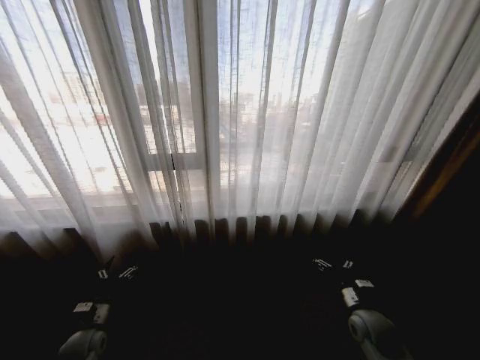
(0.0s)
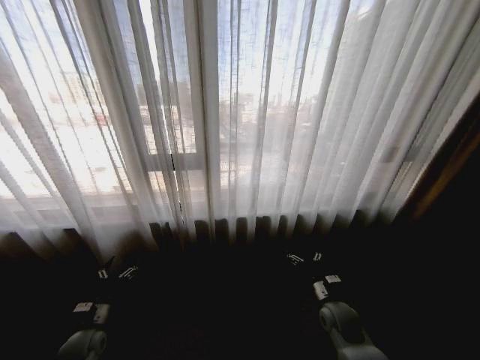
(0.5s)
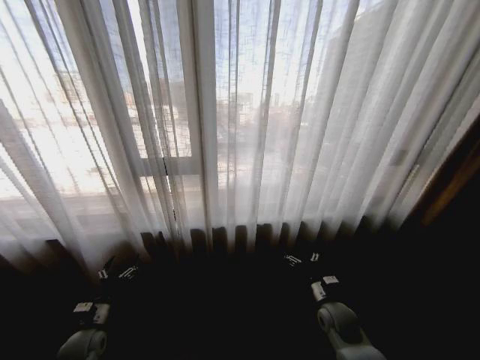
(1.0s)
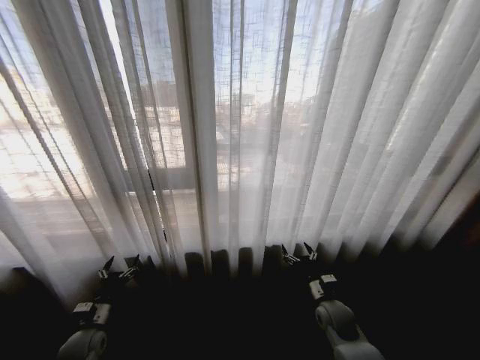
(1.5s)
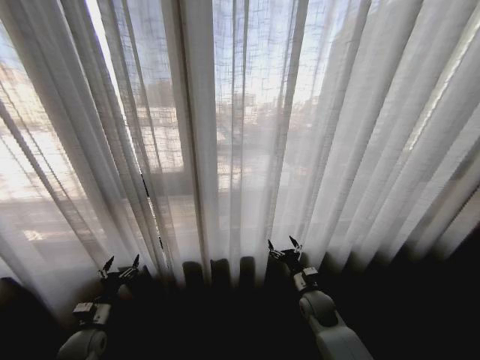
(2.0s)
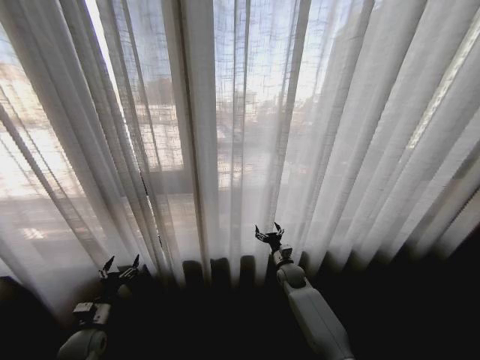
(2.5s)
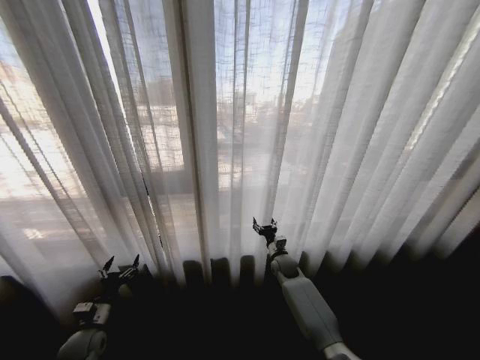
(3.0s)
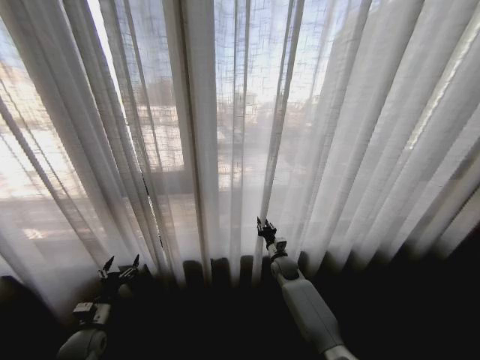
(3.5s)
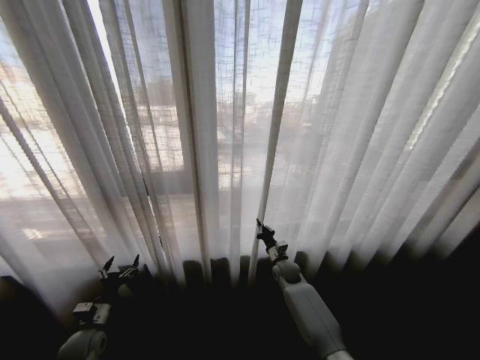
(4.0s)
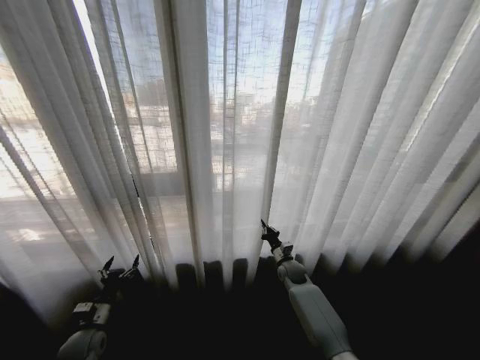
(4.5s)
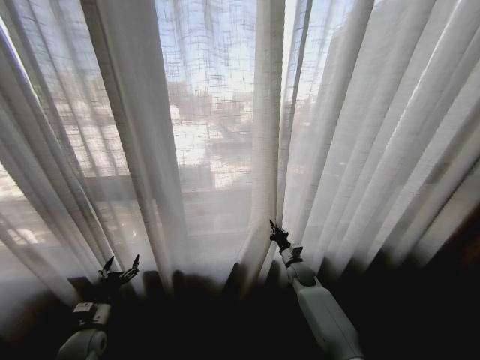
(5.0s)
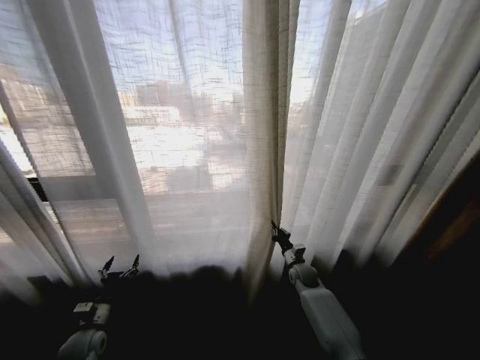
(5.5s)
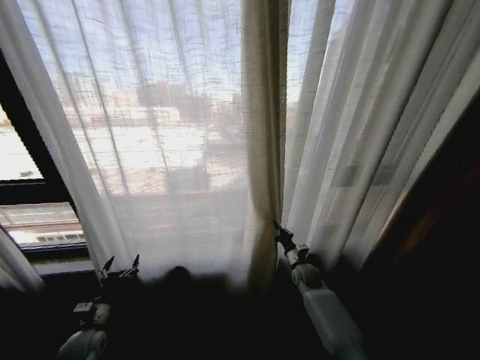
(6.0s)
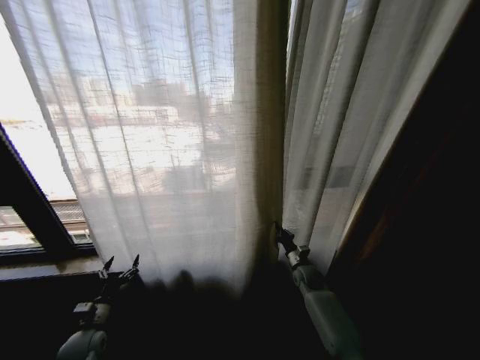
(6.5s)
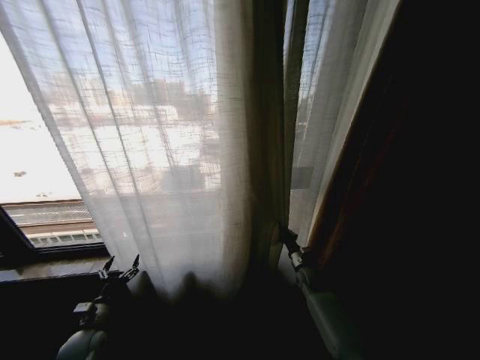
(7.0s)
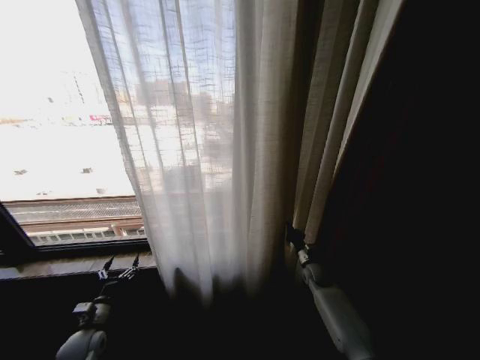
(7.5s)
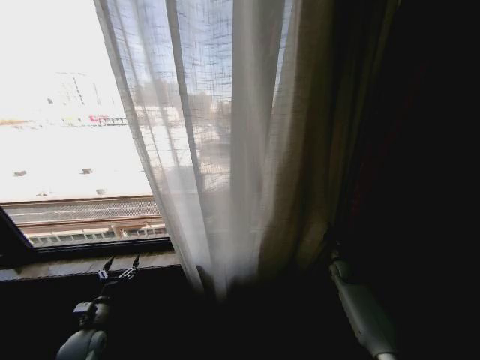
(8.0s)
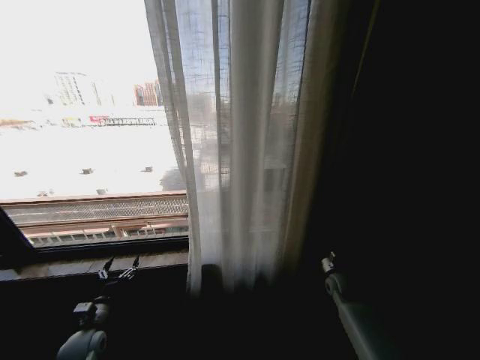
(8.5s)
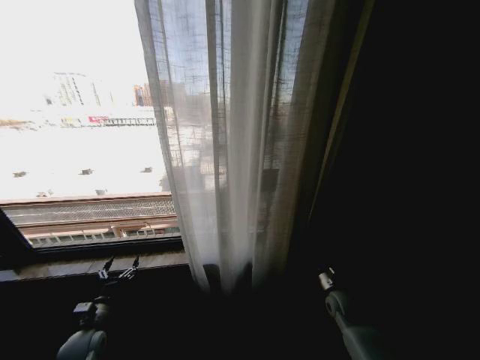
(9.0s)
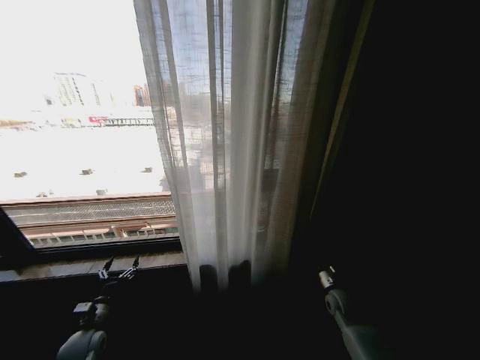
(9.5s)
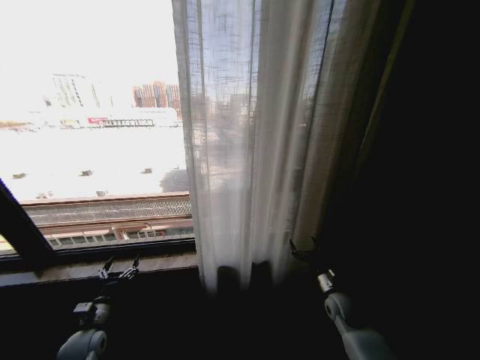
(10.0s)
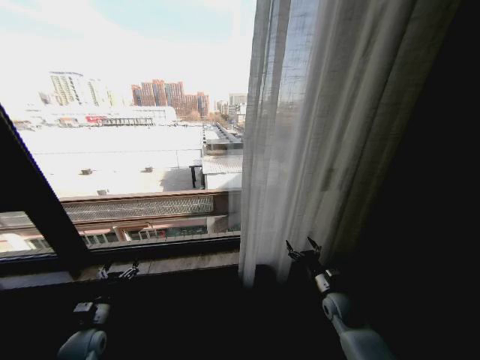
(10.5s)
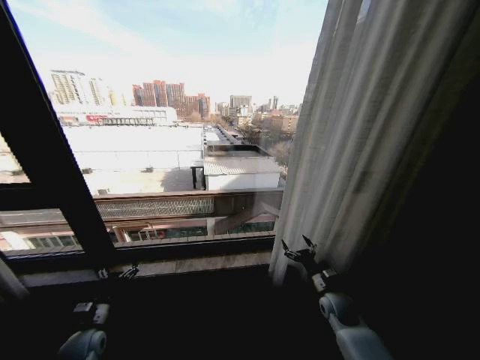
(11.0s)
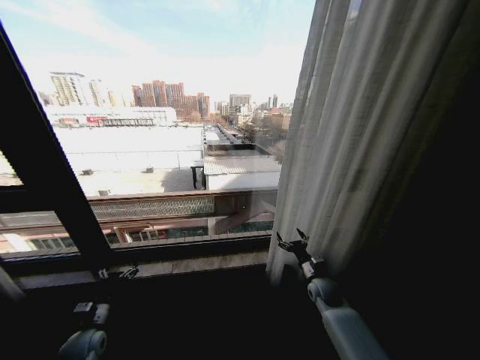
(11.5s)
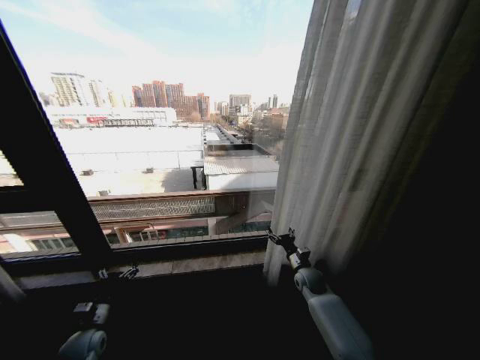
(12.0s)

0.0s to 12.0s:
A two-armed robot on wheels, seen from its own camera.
Task of the whole recording: Open the curtains by pulling them apart, changing their state from closed to fully open.
2.0s to 4.0s: The right gripper heads forward and to the left, covering approximately 15 cm, and closes its fingers.
4.0s to 6.0s: The right gripper heads to the right, covering roughly 5 cm.
6.0s to 8.0s: The right gripper heads to the right, covering roughly 15 cm.
8.0s to 10.0s: The right gripper is displaced backward and to the left by some 15 cm, and opens.
10.0s to 12.0s: The right gripper goes approximately 10 cm forward and to the left.

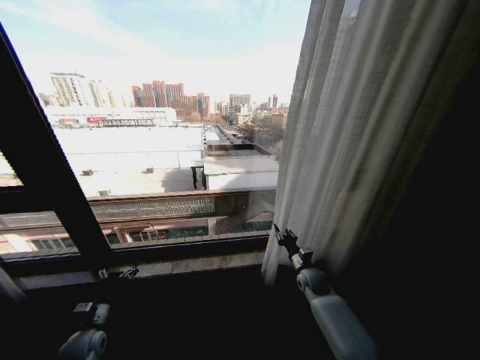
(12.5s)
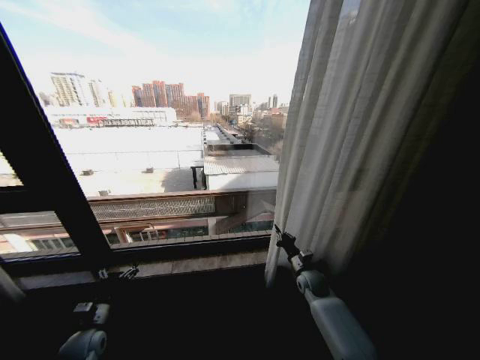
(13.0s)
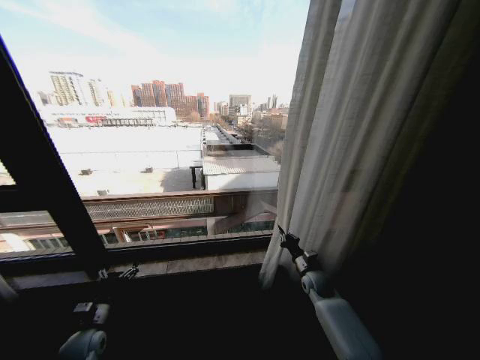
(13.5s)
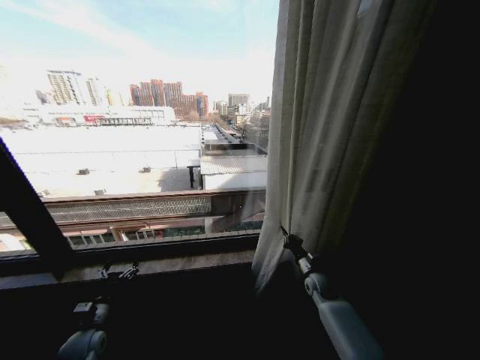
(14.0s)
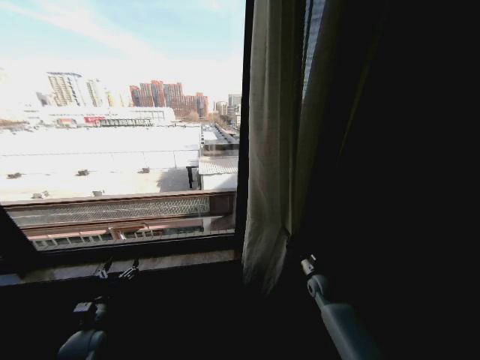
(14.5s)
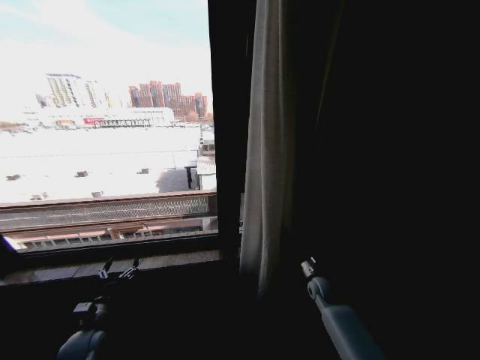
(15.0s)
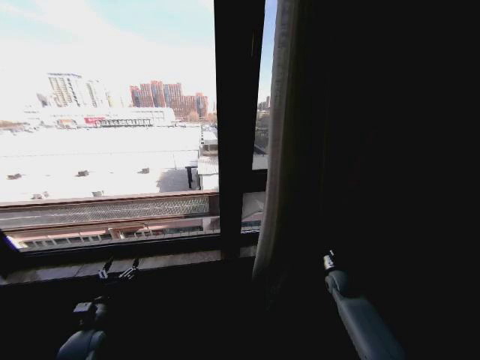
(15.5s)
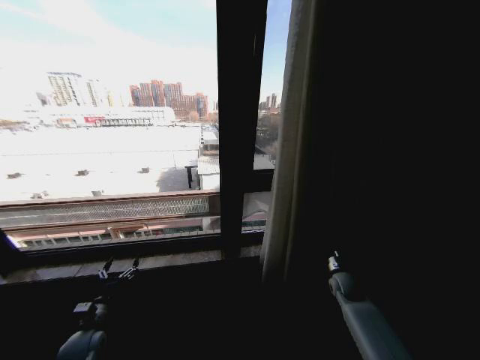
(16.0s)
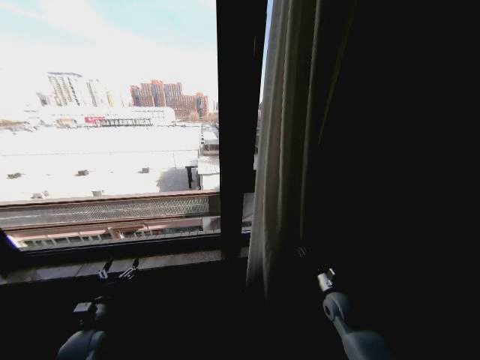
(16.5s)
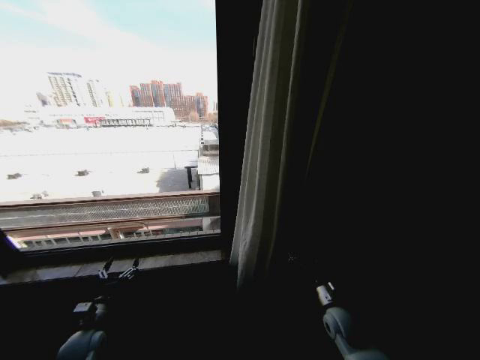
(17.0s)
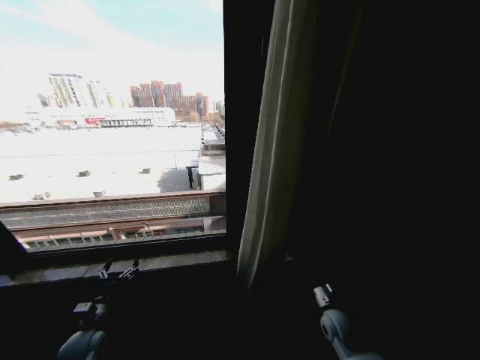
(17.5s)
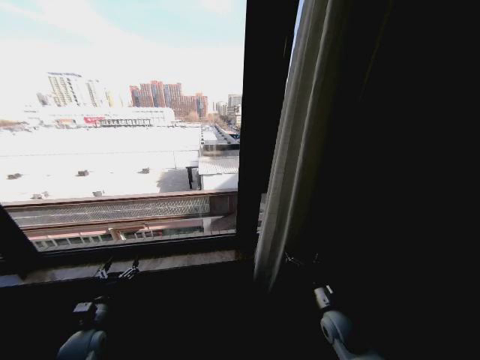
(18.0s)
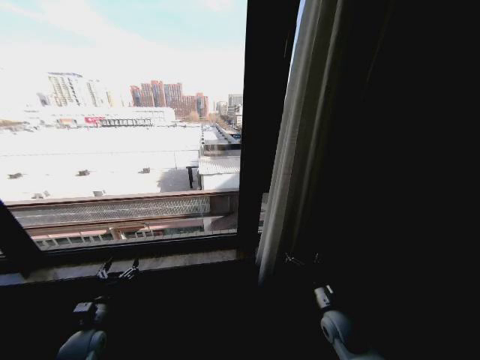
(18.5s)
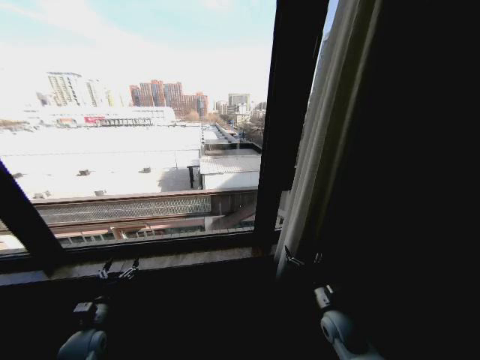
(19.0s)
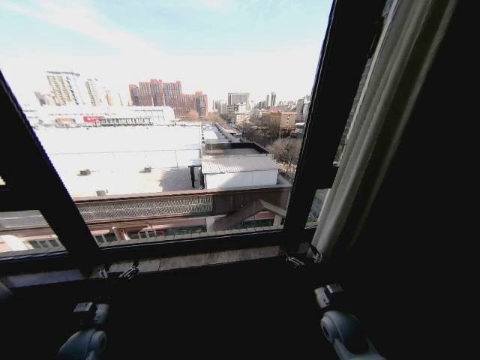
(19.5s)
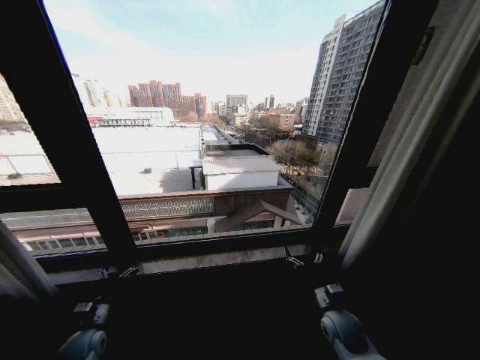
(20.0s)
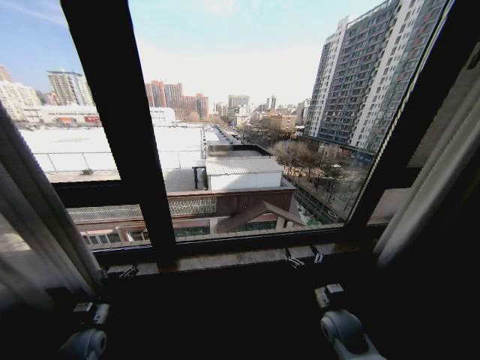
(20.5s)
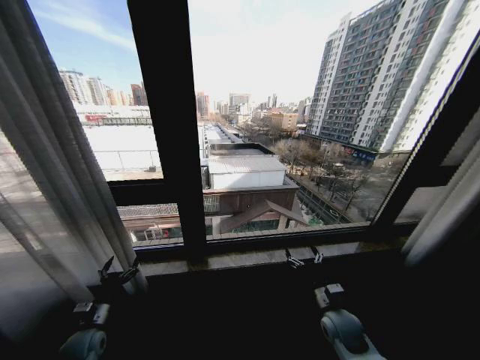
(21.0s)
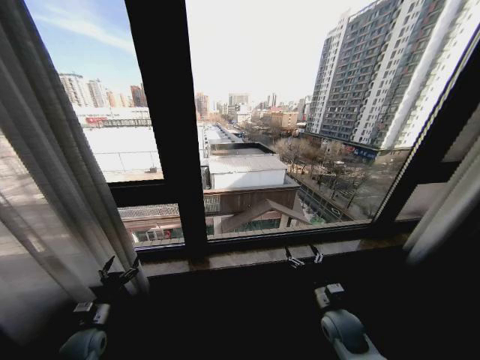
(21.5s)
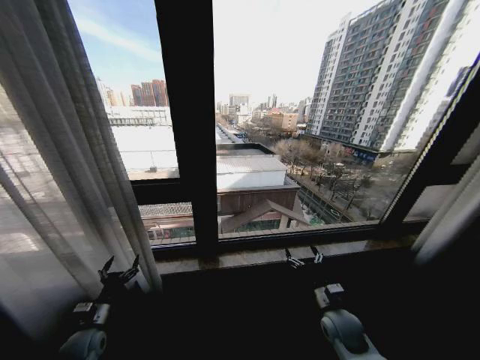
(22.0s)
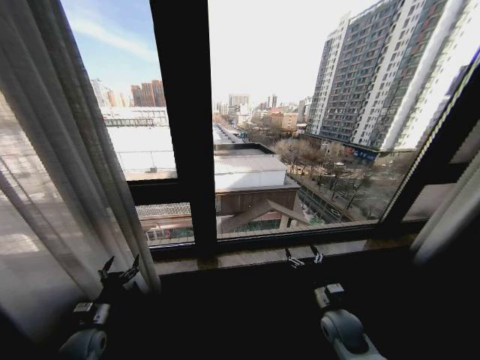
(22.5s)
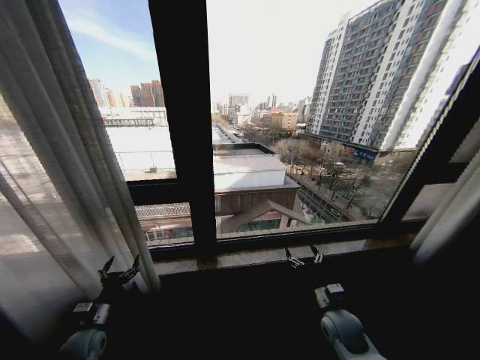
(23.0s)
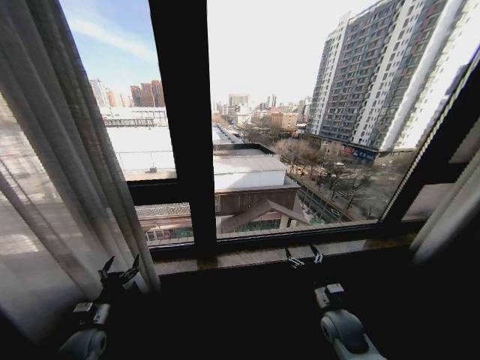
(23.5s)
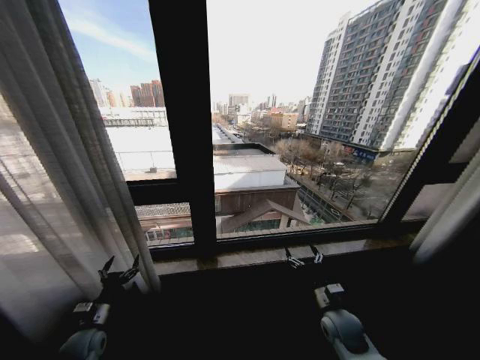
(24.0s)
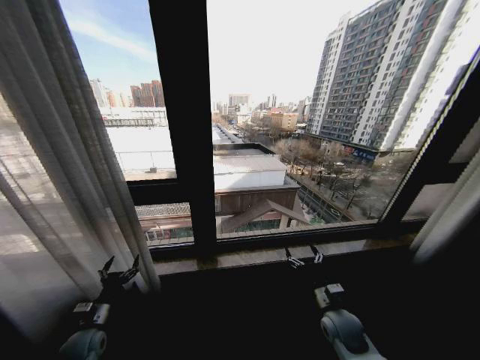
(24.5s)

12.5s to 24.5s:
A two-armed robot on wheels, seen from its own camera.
Task of the whole recording: Open the curtains by pulling them apart, changing their state from closed to fully open.
12.5s to 14.5s: The right gripper closes its fingers.
14.5s to 16.5s: The right gripper travels backward by roughly 5 cm, and opens.
16.5s to 18.5s: The right gripper shifts approximately 5 cm backward, and opens up.
22.5s to 24.5s: Both grippers stay about where they are.

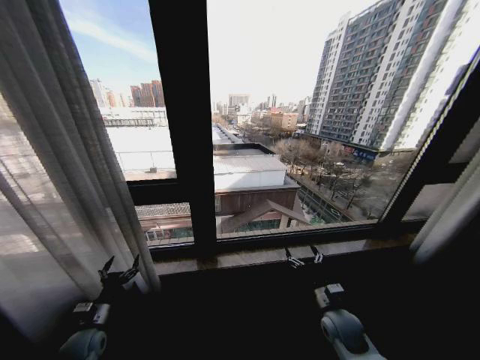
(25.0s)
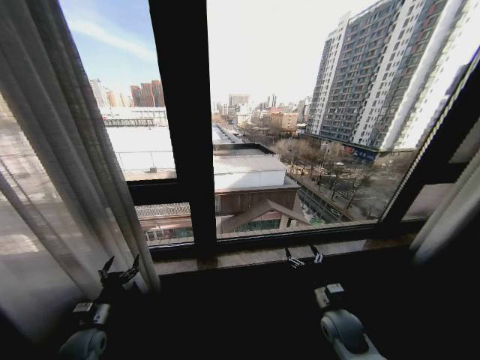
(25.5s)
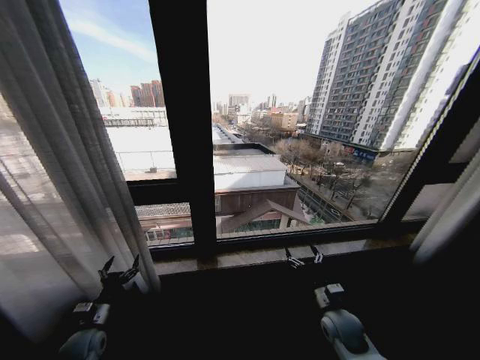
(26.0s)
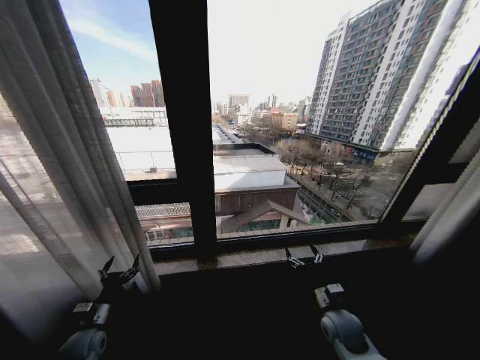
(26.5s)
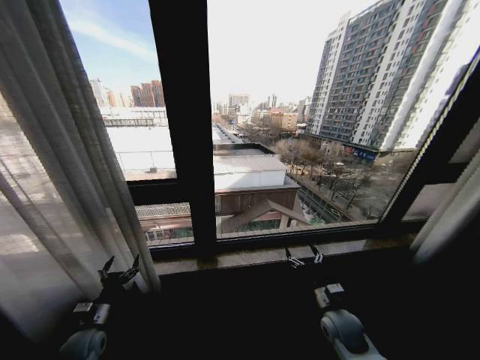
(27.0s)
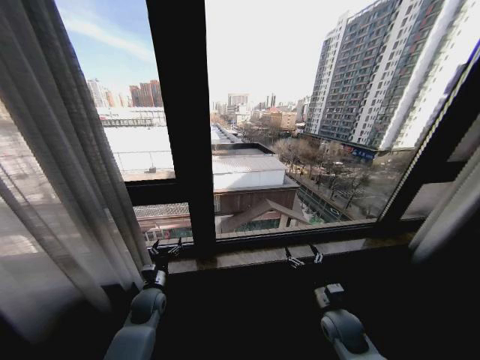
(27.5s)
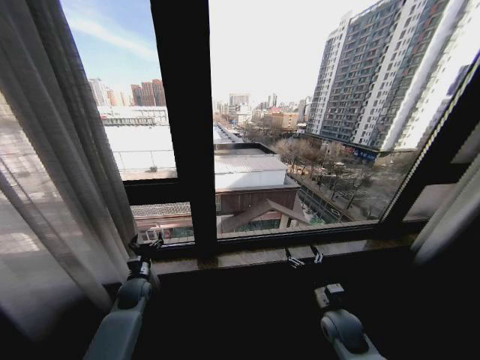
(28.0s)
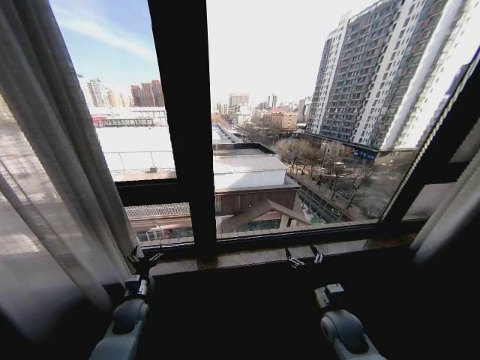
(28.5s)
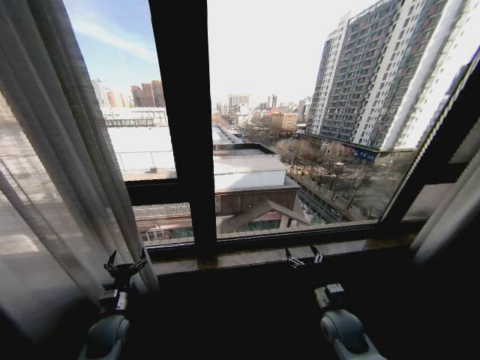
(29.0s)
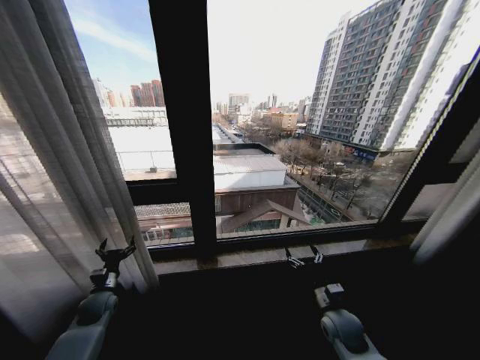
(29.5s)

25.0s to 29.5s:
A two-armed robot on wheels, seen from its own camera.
Task of the whole recording: Open the curtains by pulling them apart, changing their state from closed to fully open.
25.0s to 27.0s: Both grippers stay put.
27.0s to 29.5s: The left gripper heads forward, covering approximately 10 cm, and travels to the right and back again, about 15 cm each way.
